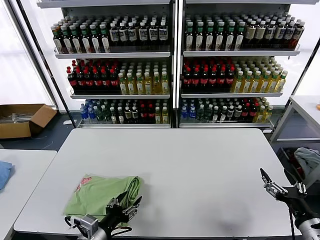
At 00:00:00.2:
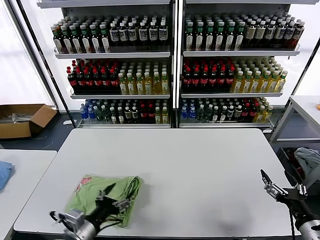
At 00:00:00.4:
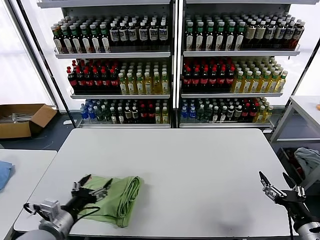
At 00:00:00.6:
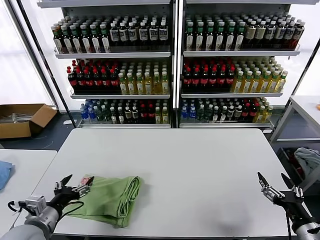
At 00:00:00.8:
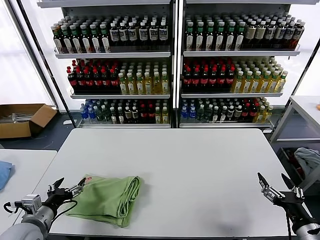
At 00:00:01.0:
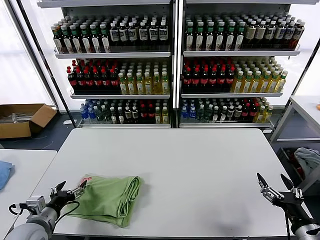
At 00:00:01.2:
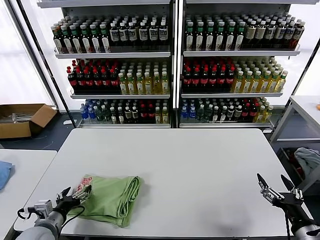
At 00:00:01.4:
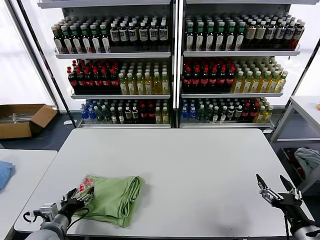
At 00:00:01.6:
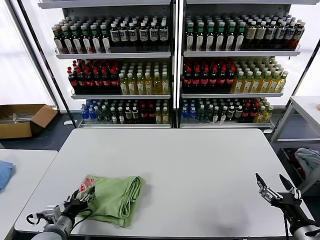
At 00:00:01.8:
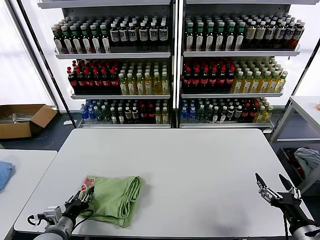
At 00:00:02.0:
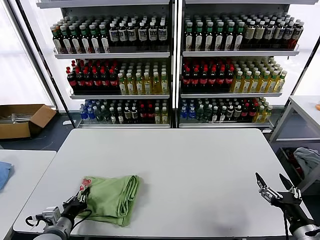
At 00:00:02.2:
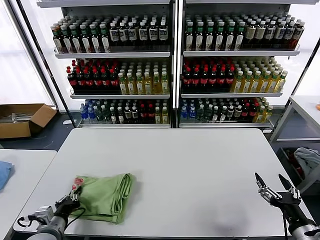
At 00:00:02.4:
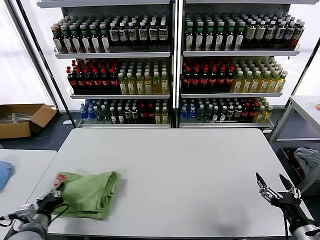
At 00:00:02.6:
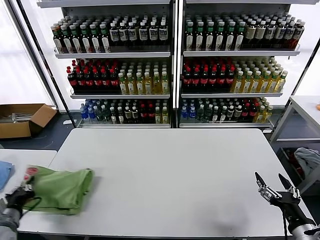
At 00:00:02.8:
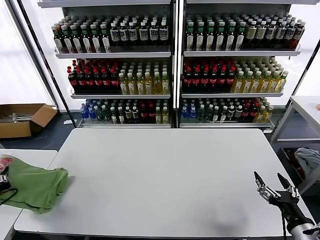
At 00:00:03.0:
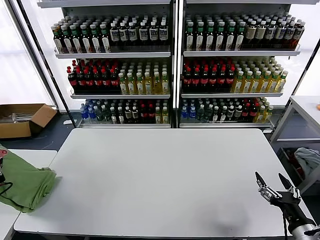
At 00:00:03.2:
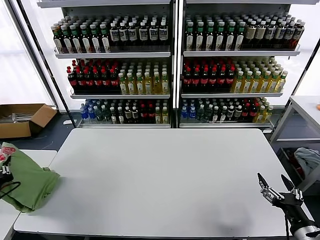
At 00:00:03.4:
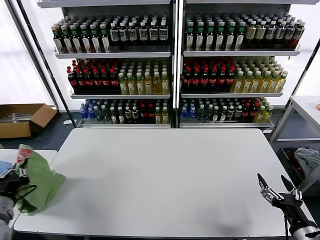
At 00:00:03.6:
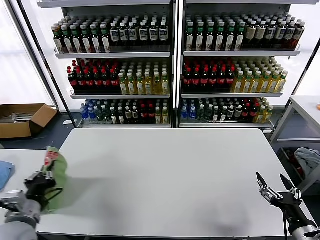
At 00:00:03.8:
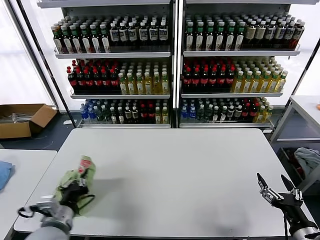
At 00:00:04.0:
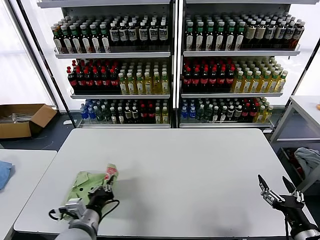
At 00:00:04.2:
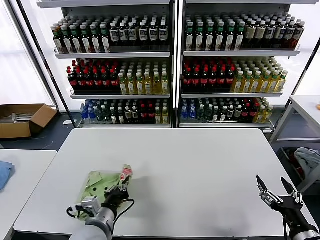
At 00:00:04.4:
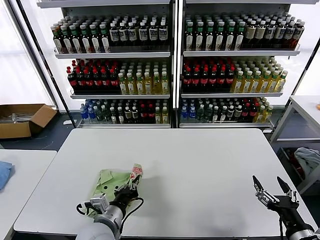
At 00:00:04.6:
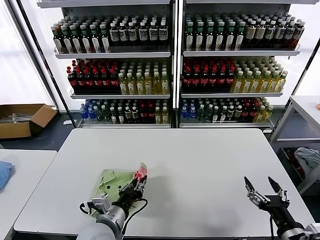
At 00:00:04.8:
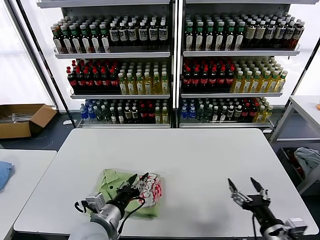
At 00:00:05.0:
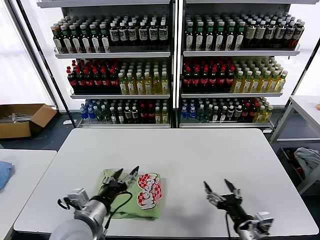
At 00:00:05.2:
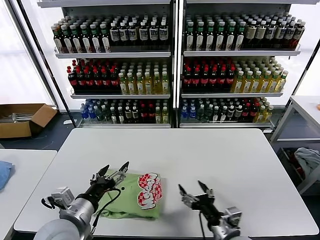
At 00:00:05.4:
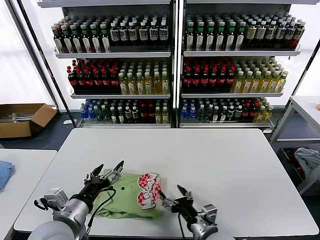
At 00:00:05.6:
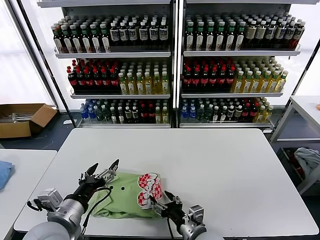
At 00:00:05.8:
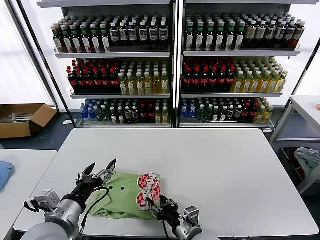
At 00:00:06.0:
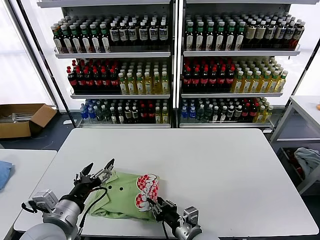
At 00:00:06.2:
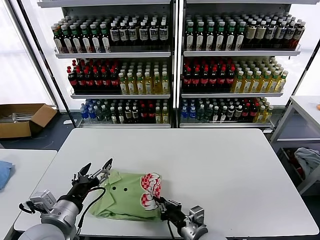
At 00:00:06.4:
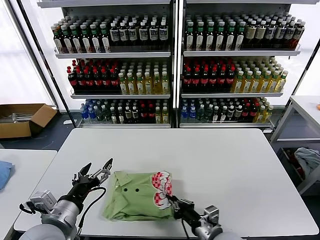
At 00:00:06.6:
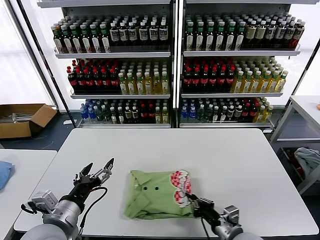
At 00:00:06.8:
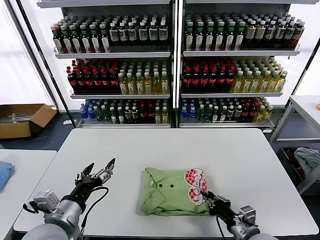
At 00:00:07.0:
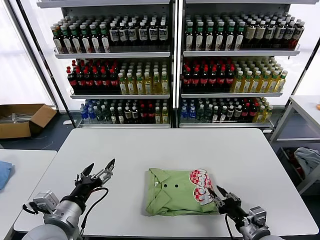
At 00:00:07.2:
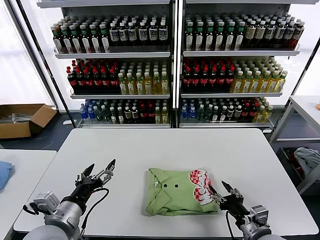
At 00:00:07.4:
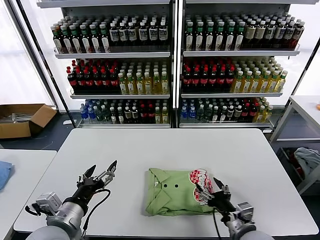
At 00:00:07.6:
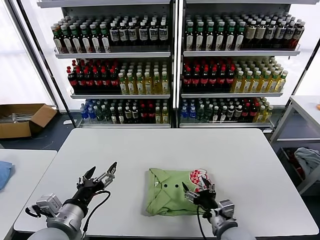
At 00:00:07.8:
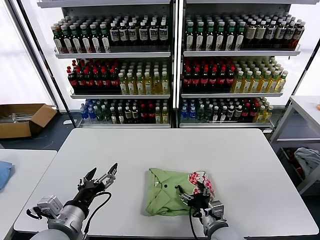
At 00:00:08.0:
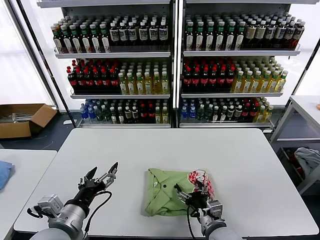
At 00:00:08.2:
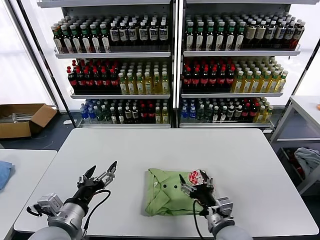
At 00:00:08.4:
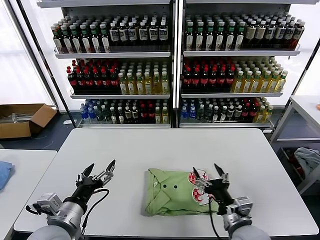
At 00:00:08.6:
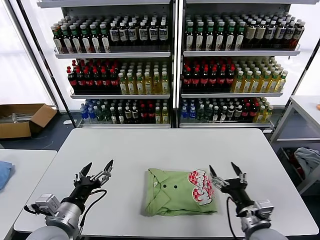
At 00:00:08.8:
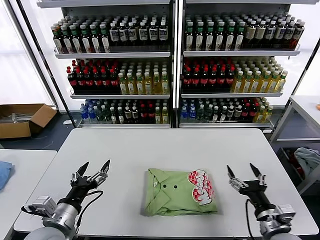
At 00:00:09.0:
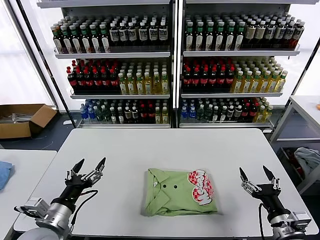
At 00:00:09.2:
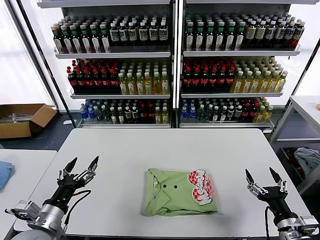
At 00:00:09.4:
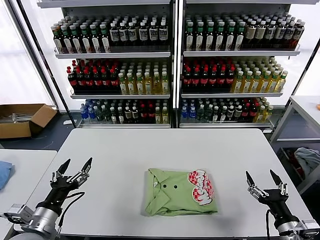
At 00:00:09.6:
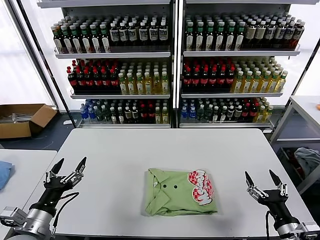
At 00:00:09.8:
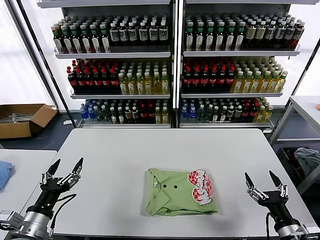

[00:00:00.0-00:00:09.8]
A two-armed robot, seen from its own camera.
Task of the whole recording: fold and organize the clothes.
Step, 00:00:00.2 to 00:00:04.8: Flip the folded clothes over with left gripper.
Step, 00:00:05.0 to 00:00:08.0: Drag the clothes to the center of the table.
00:00:00.0 to 00:00:01.4: The left gripper is displaced to the left by roughly 15 cm.
00:00:01.4 to 00:00:02.8: The left gripper moves to the left and upward, approximately 15 cm, and closes its fingers.
00:00:02.8 to 00:00:04.2: The left gripper heads to the right, covering roughly 30 cm.
00:00:04.2 to 00:00:05.6: The right gripper goes about 25 cm to the left, forward and downward. The left gripper heads upward and to the left, covering approximately 10 cm, and opens its fingers.
00:00:05.6 to 00:00:07.0: The right gripper moves to the right, roughly 15 cm, and closes.
00:00:07.0 to 00:00:08.4: The right gripper heads to the left, covering roughly 10 cm, and opens its fingers.
00:00:08.4 to 00:00:09.8: The left gripper heads to the left, covering roughly 10 cm. The right gripper is displaced to the right and backward by approximately 15 cm.

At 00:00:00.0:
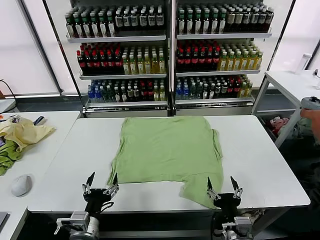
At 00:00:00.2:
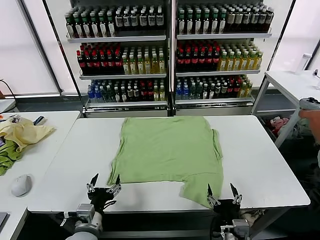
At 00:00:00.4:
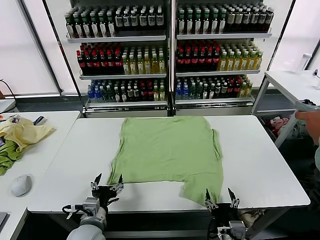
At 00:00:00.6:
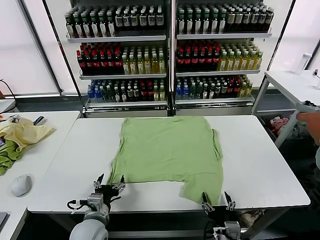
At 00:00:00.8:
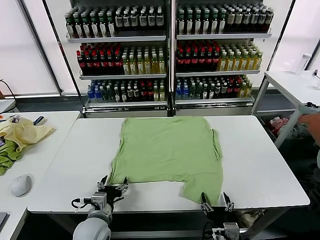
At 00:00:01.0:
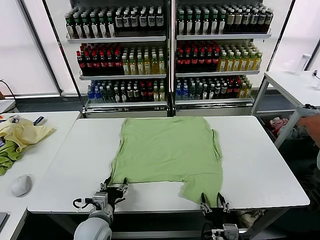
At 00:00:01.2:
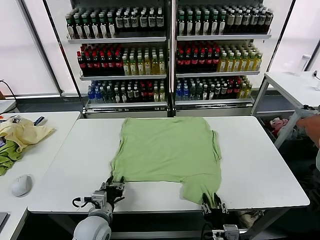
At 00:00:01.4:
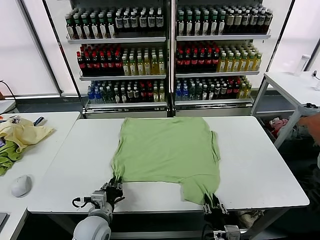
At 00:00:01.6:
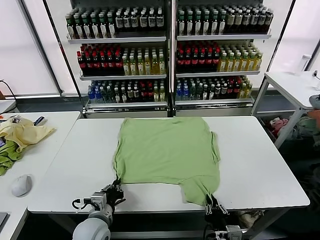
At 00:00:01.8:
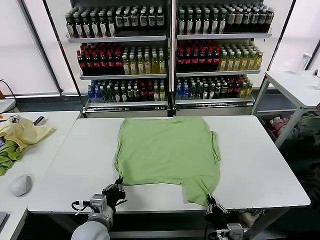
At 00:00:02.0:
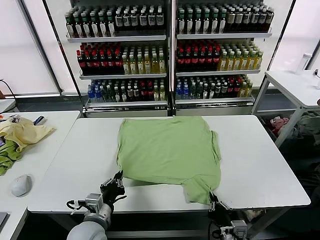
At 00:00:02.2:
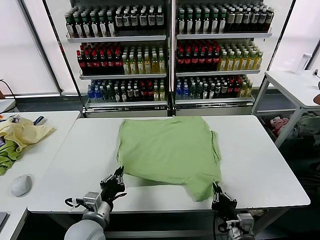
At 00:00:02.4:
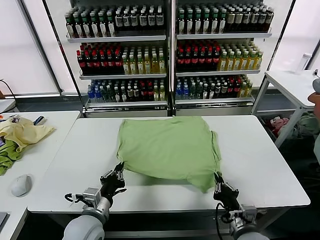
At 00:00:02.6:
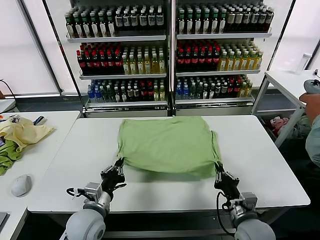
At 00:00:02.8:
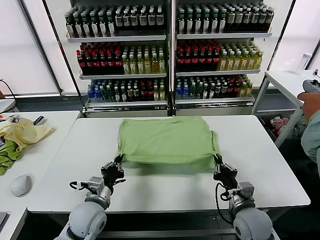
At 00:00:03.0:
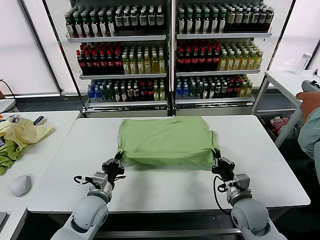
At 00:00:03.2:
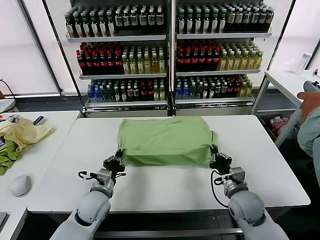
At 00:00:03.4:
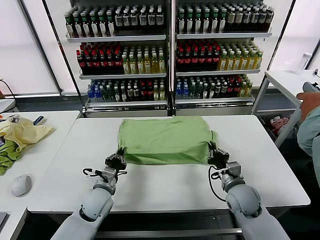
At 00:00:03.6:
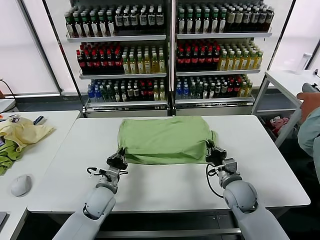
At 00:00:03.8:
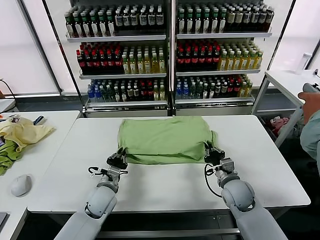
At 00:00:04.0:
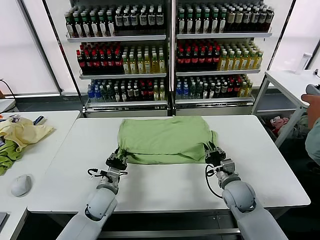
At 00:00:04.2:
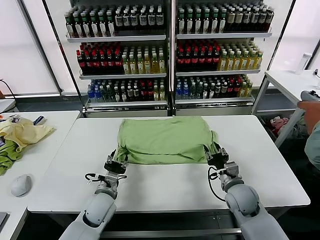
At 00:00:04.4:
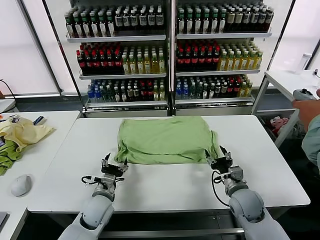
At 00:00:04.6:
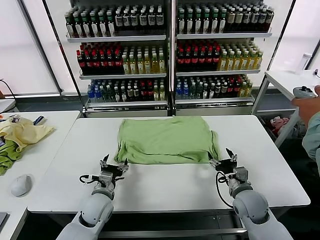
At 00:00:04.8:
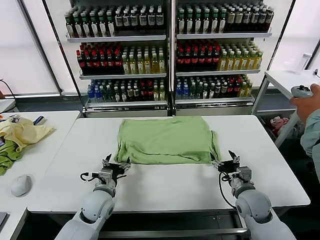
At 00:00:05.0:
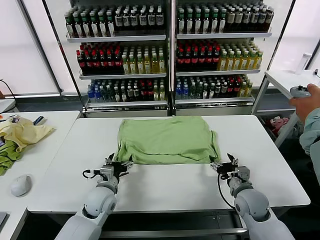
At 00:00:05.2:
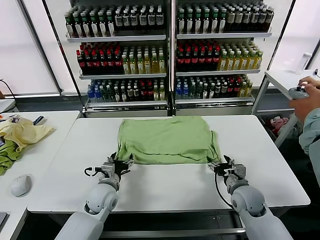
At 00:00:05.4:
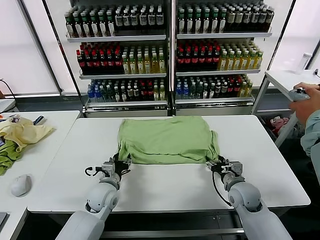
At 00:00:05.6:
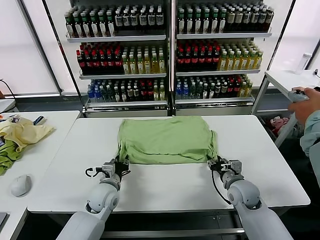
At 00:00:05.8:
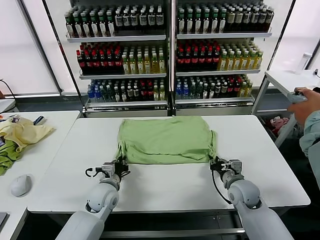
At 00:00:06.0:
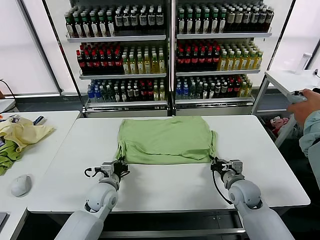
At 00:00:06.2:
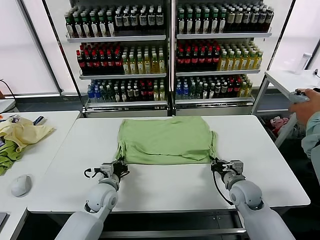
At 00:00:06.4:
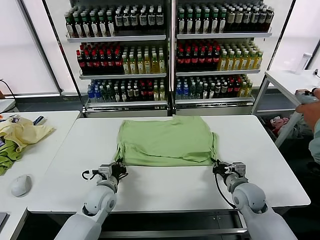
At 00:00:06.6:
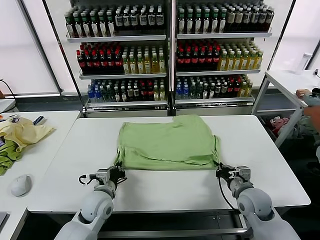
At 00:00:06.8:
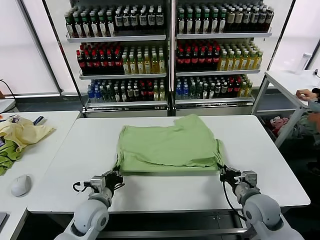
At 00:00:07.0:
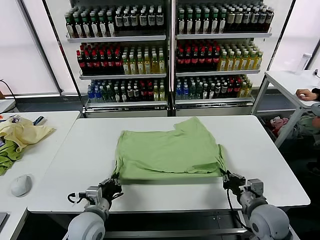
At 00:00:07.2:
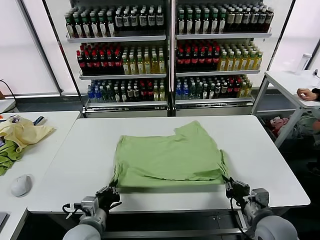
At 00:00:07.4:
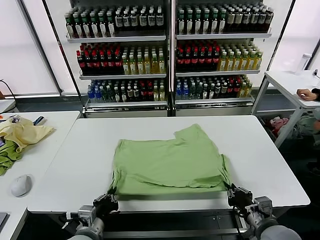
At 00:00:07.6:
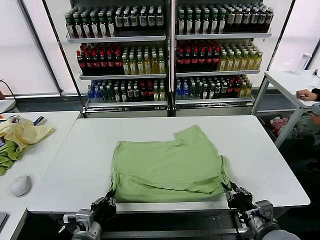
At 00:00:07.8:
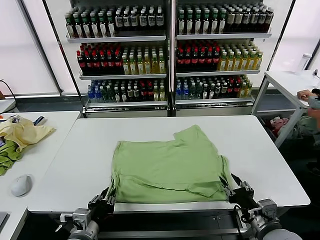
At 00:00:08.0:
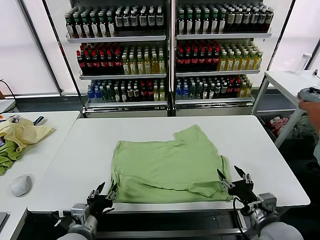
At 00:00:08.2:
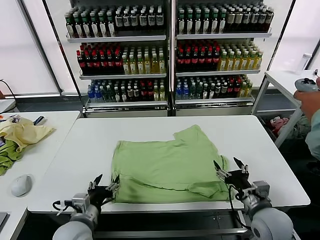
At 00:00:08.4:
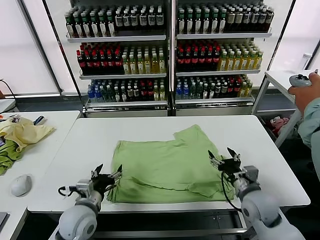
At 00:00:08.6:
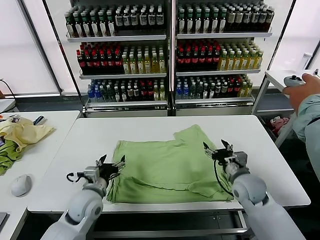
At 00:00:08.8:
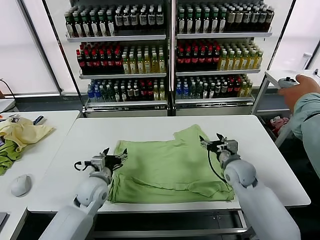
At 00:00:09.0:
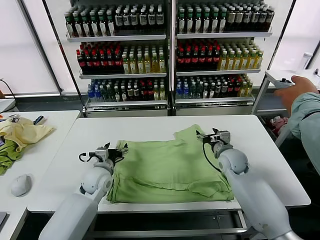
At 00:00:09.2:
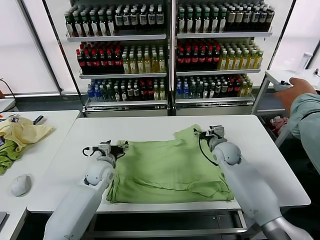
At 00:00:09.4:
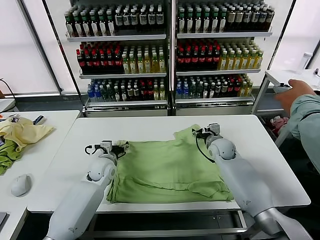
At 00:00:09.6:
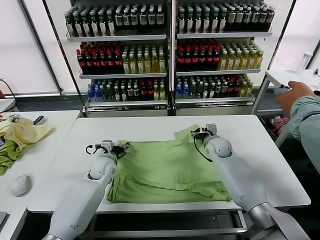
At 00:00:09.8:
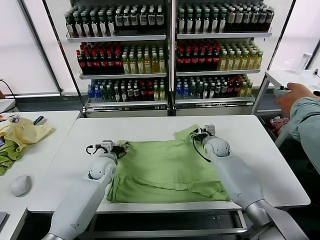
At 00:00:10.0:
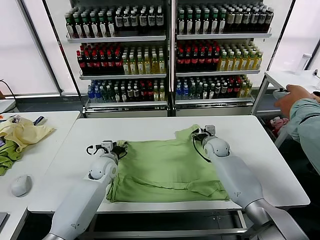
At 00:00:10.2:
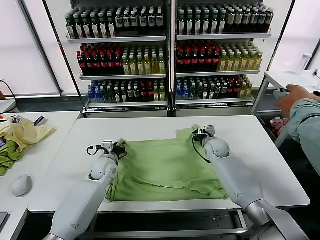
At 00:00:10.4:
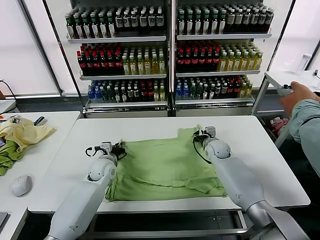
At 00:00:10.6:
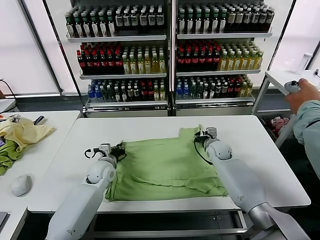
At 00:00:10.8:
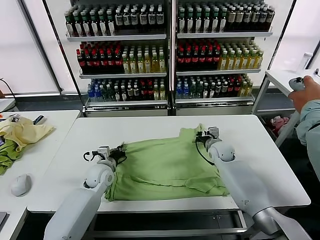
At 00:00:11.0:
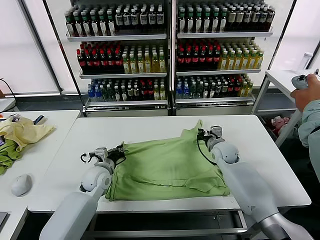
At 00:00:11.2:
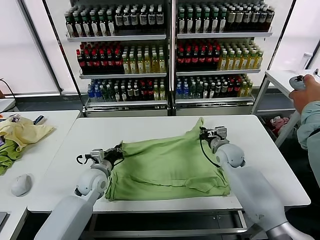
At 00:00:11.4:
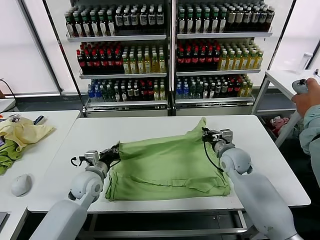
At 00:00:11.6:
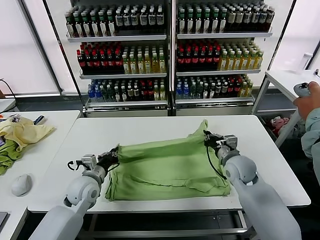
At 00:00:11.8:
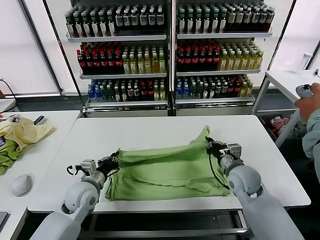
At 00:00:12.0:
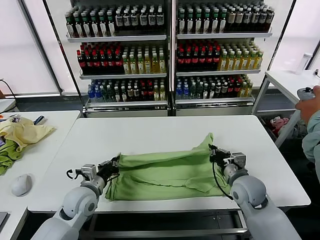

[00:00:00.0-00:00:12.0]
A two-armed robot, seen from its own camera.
Task of the whole recording: fold and organize the clothes.
Step, 00:00:00.0 to 00:00:01.6: use both grippers simultaneously to clamp the lower edge of the clothing fabric.
Step, 00:00:02.0 to 00:00:04.0: use both grippers to drag the lower edge of the fabric forward and fold it over the upper edge.
Step, 00:00:04.4 to 00:00:07.8: Drag the clothes downward with both gripper.
Step, 00:00:08.2 to 00:00:10.6: use both grippers simultaneously to clamp the upper edge of the clothing fabric.
00:00:01.6 to 00:00:03.0: The right gripper heads forward, covering approximately 15 cm. Meanwhile the left gripper ends up roughly 5 cm from where it was.
00:00:03.0 to 00:00:04.4: The left gripper opens its fingers. The right gripper opens up.
00:00:04.4 to 00:00:06.0: The right gripper closes its fingers. The left gripper closes.
00:00:06.0 to 00:00:07.6: The two grippers go some 20 cm backward.
00:00:07.6 to 00:00:09.0: The two grippers go approximately 25 cm forward. The right gripper opens its fingers, while the left gripper opens its fingers.
00:00:09.0 to 00:00:10.4: Both grippers move forward, about 10 cm. The right gripper closes its fingers. Meanwhile the left gripper closes up.
00:00:10.4 to 00:00:12.0: The right gripper heads backward, covering approximately 20 cm. The left gripper shifts some 15 cm backward.
